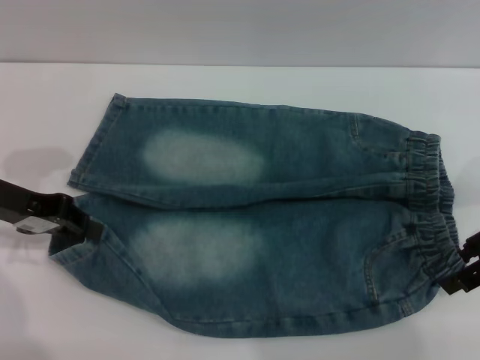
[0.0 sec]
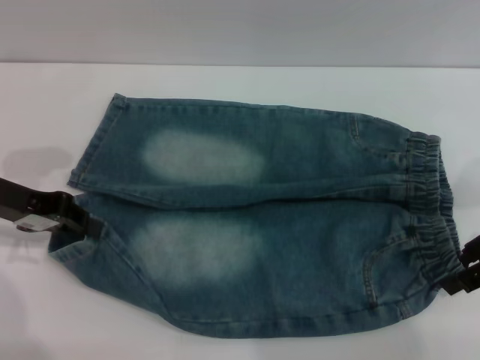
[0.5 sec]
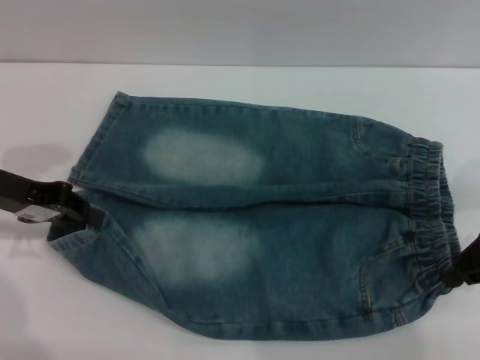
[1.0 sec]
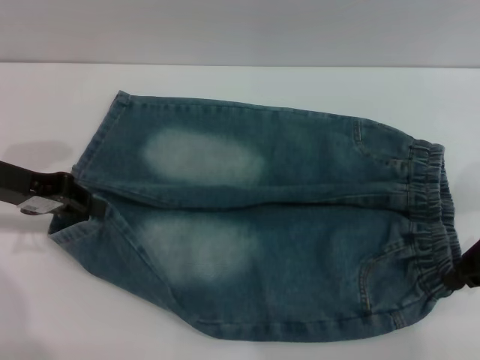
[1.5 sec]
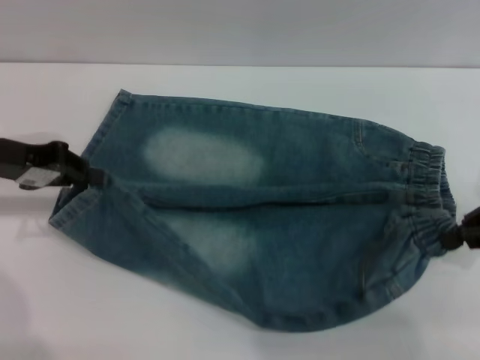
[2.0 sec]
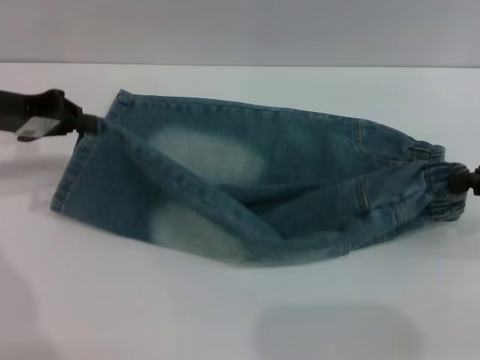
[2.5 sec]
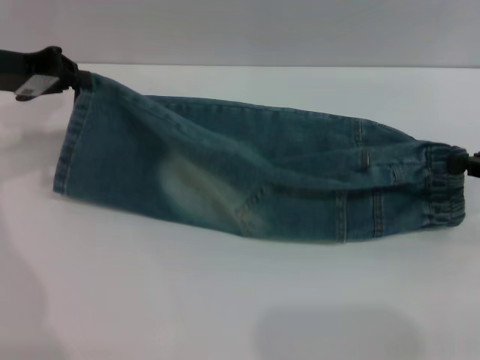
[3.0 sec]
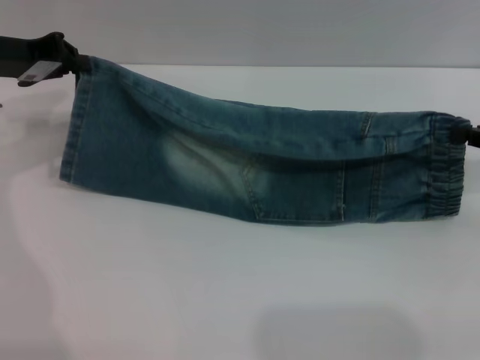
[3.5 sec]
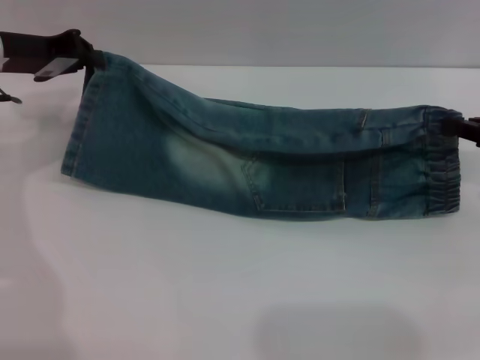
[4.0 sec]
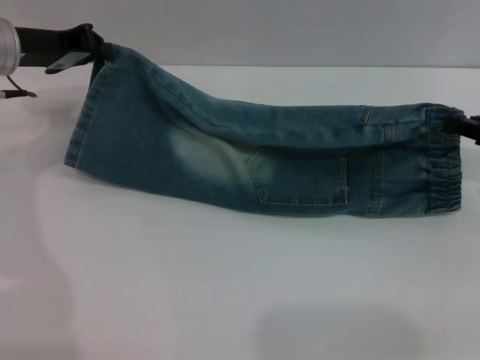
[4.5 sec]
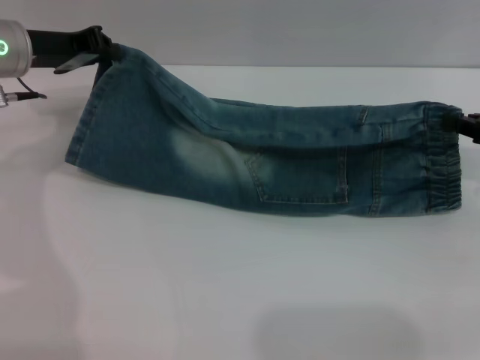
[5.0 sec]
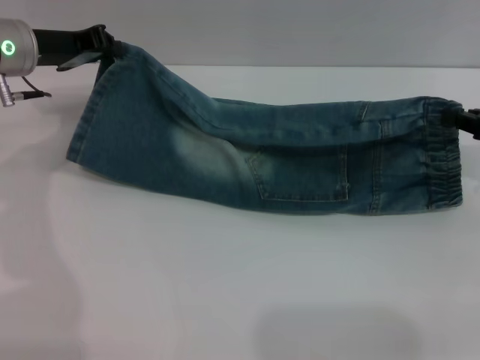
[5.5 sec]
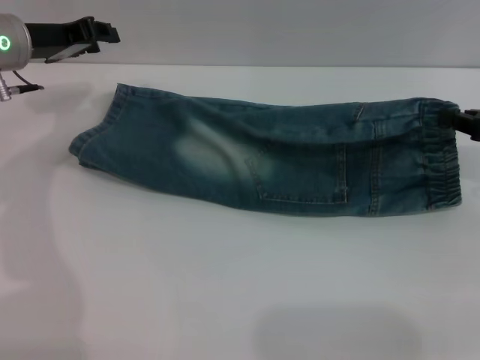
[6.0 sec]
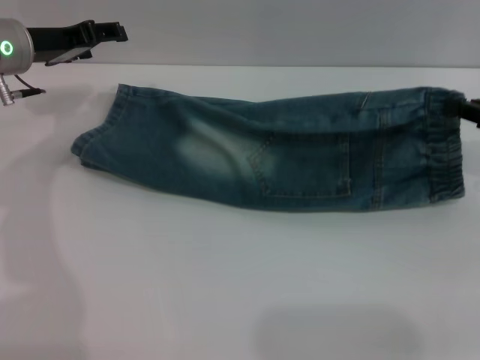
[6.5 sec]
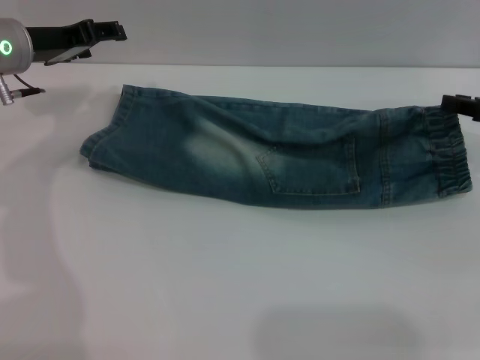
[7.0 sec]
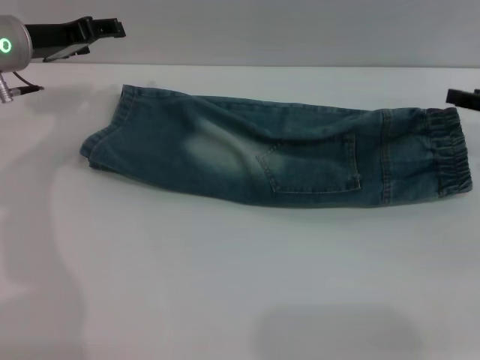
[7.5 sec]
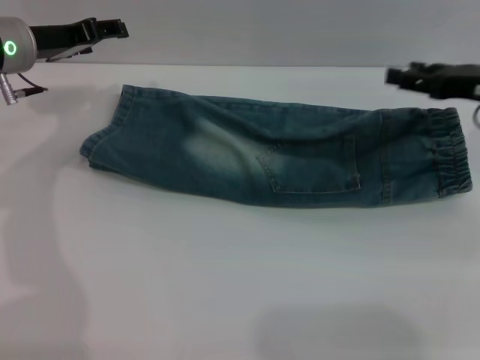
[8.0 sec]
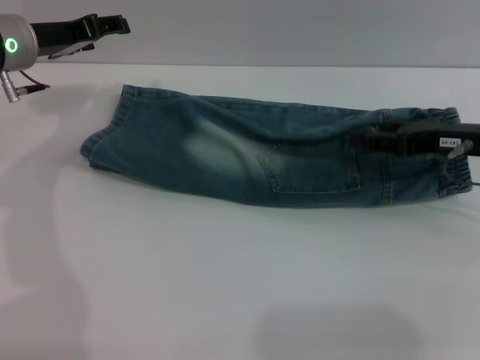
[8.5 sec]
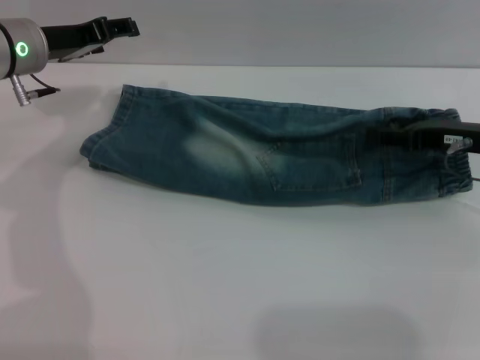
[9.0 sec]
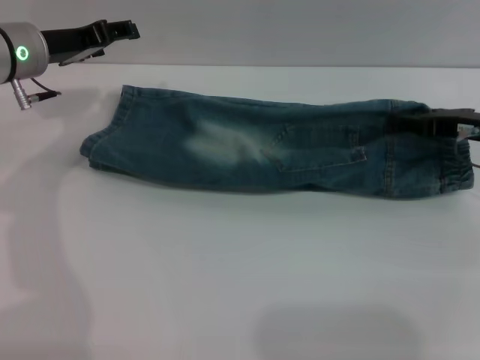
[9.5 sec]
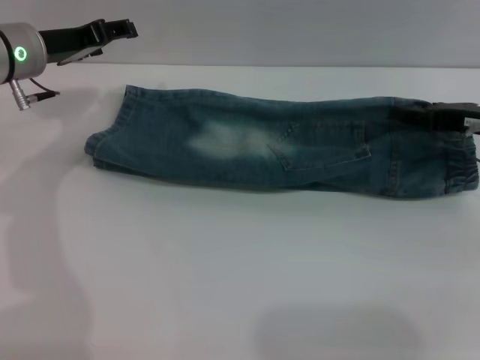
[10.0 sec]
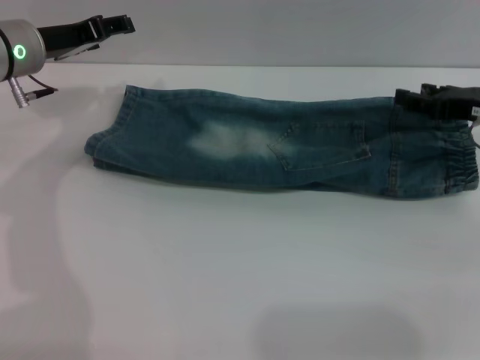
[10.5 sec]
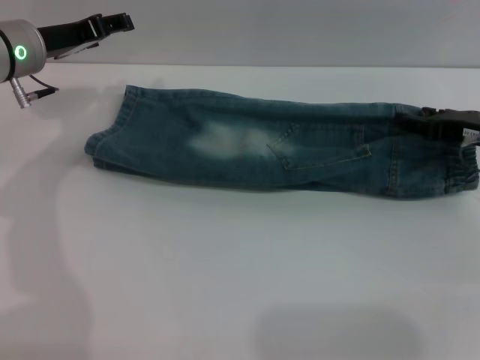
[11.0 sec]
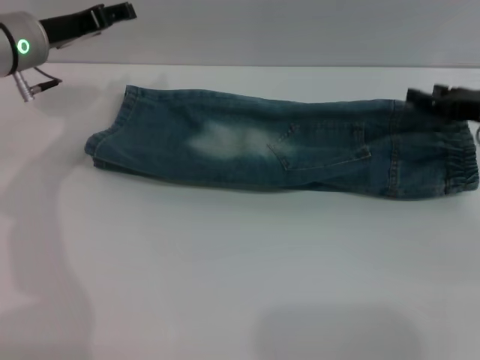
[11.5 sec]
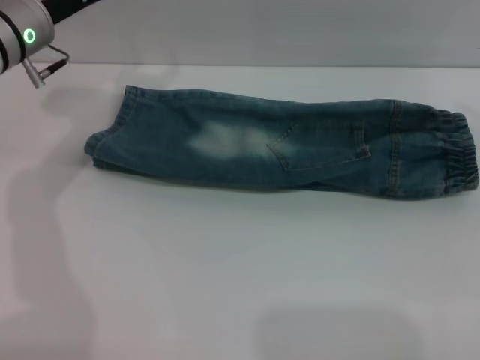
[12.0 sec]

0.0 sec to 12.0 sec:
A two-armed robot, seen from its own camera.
Step, 0.0 sec to 7.5 sec: Fold the bottom of the pants upward with both grippers.
0.0 sec to 2.0 sec: The right gripper closes its fingers.
2.0 sec to 4.0 sec: The left gripper shifts some 5 cm forward.
4.0 sec to 6.0 sec: There are only small adjustments of the grippers.
6.0 sec to 8.0 sec: The left gripper opens, while the right gripper ends up about 5 cm from where it was, and opens its fingers.
8.0 sec to 10.0 sec: The grippers stay close to where they were, moving slightly.
10.0 sec to 12.0 sec: The right gripper is displaced to the right and upward by approximately 10 cm.

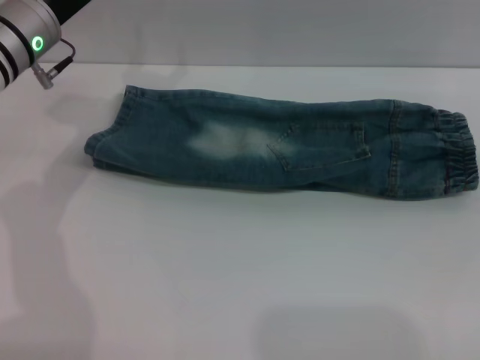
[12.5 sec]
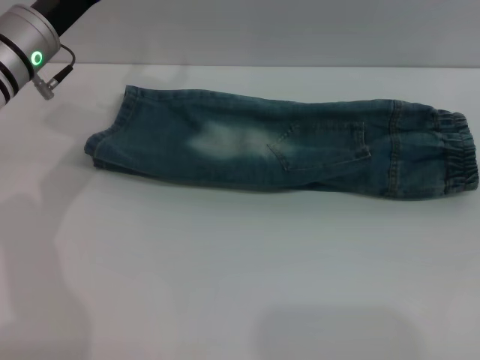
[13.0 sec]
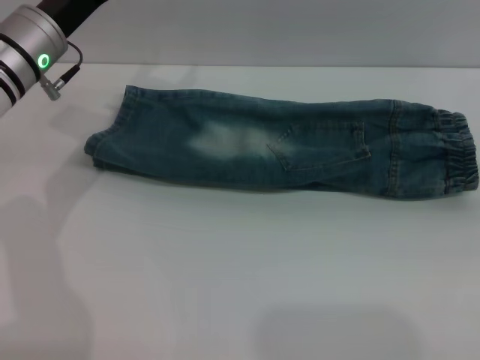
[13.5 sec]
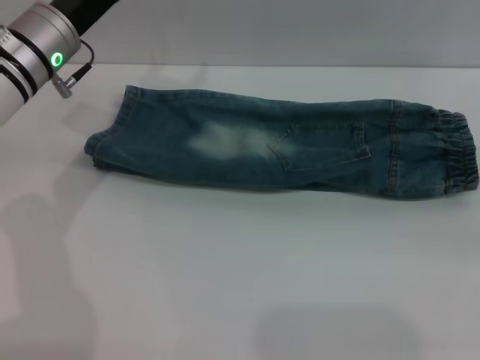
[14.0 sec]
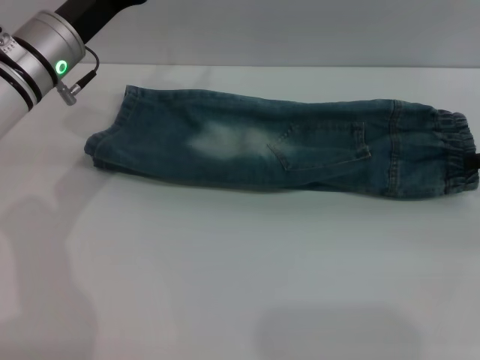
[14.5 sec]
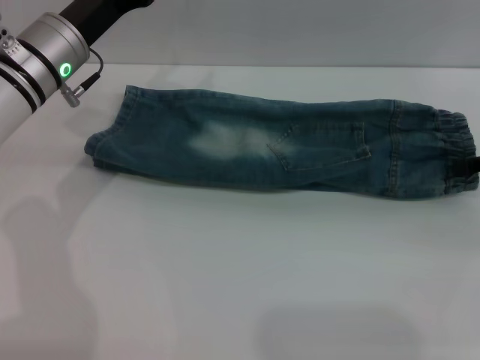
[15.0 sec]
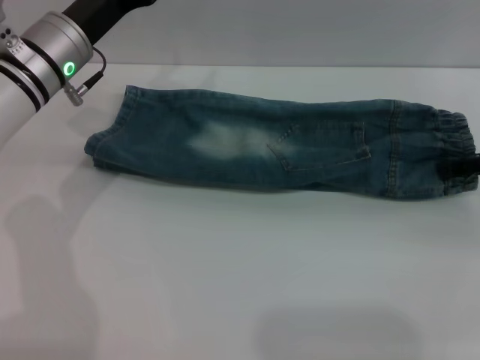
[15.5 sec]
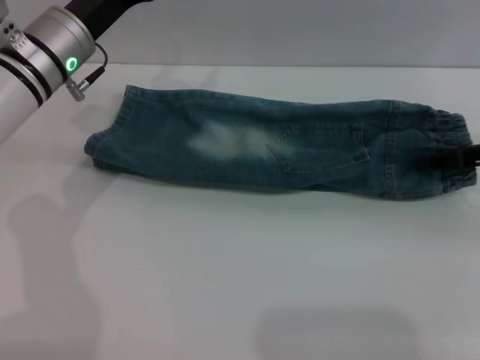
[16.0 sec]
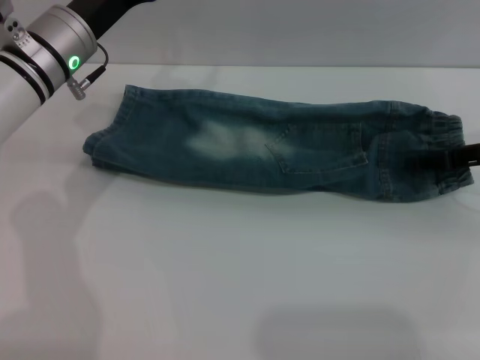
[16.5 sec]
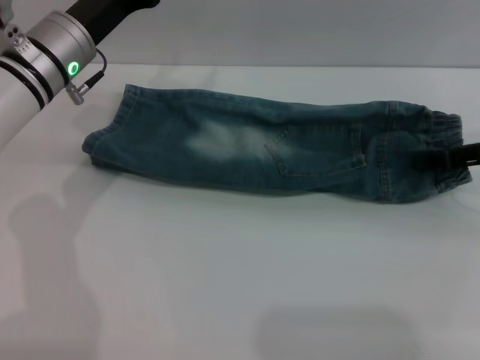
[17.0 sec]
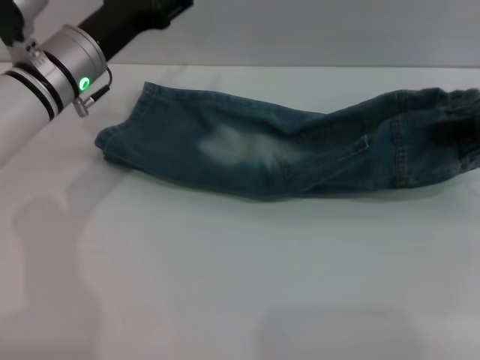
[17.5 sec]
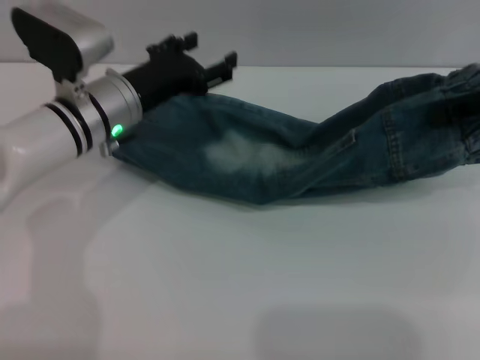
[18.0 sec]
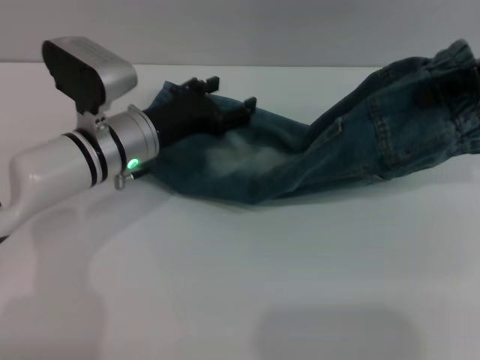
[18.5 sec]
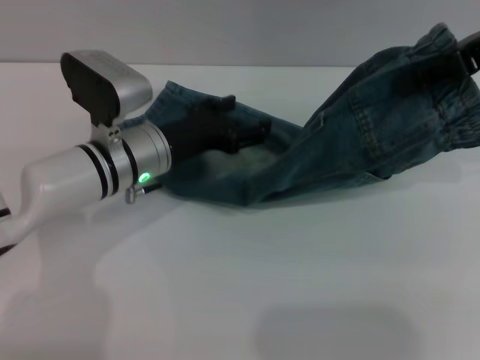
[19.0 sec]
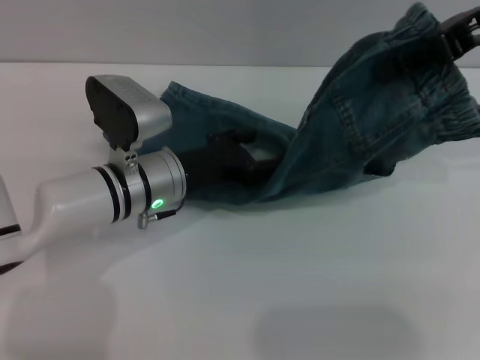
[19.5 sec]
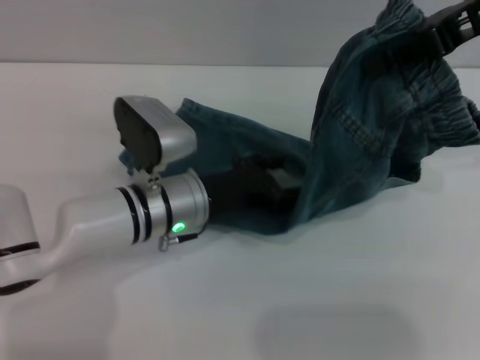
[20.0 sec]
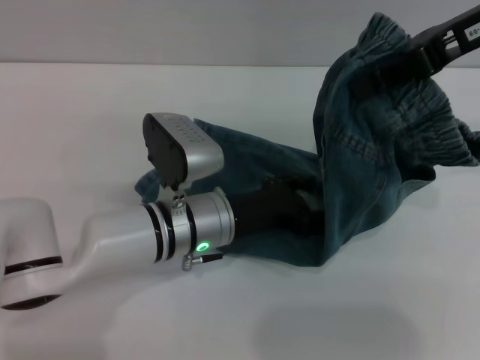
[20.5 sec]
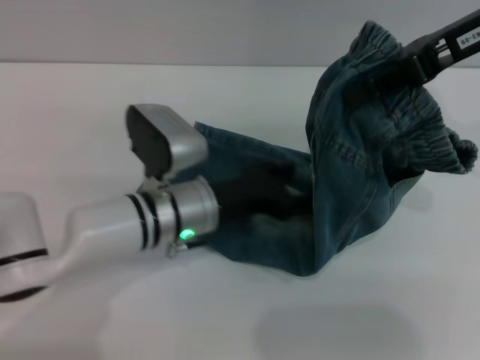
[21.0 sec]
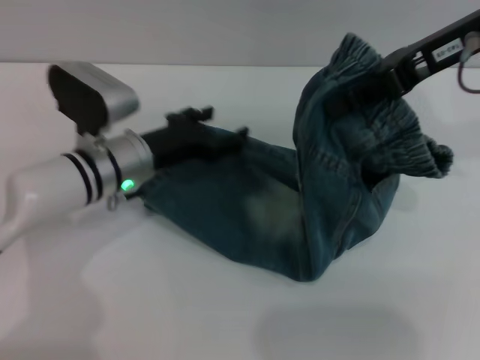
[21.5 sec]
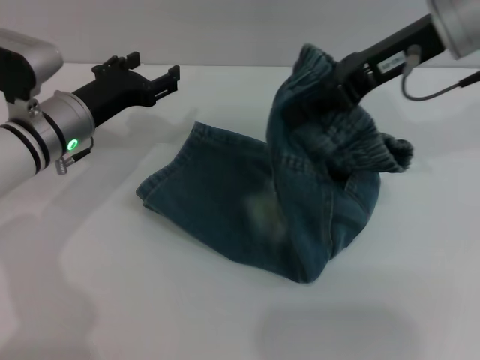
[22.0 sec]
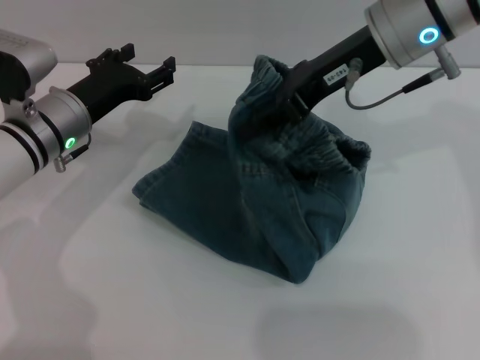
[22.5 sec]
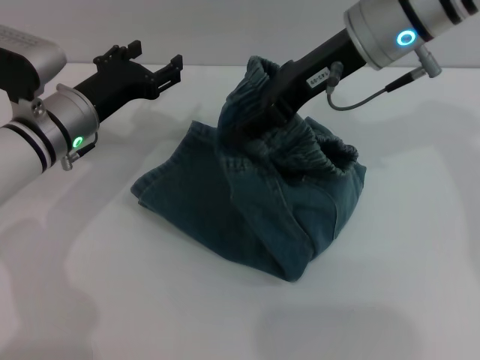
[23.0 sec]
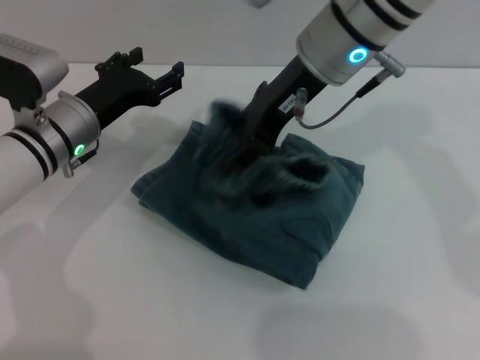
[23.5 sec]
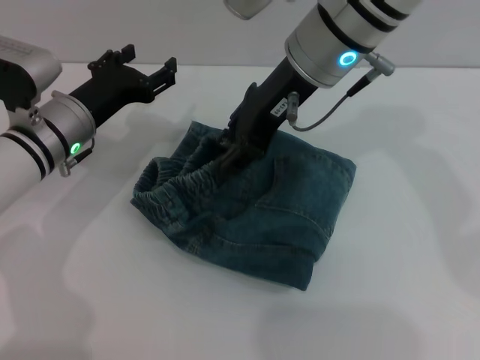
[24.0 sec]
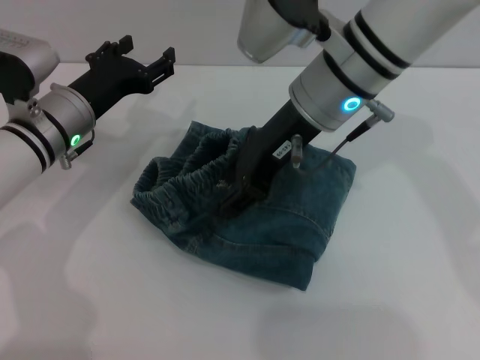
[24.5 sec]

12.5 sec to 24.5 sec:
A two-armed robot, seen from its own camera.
14.5 sec to 16.5 sec: The right gripper heads to the left, covering some 5 cm.
16.5 sec to 18.5 sec: The right gripper travels upward by roughly 15 cm, and closes its fingers. The left gripper shifts roughly 5 cm downward.
18.5 sec to 20.5 sec: The left gripper goes approximately 10 cm to the right and backward; the right gripper moves to the left, about 5 cm.
20.5 sec to 22.5 sec: The right gripper travels to the left by roughly 10 cm. Meanwhile the left gripper moves to the left and forward, roughly 15 cm.
22.5 sec to 24.5 sec: The right gripper heads to the left, covering some 5 cm, and opens its fingers.

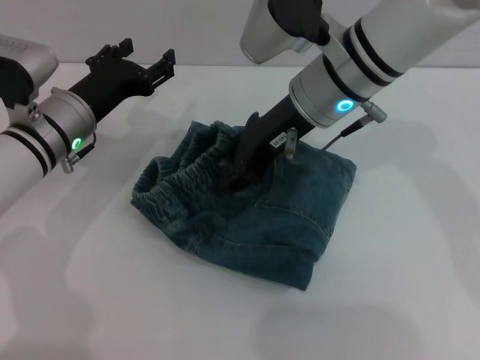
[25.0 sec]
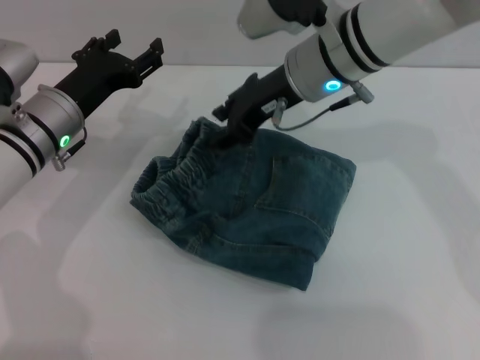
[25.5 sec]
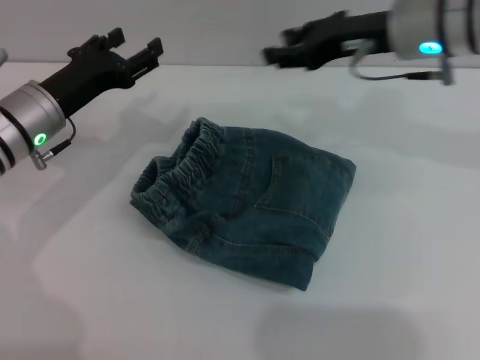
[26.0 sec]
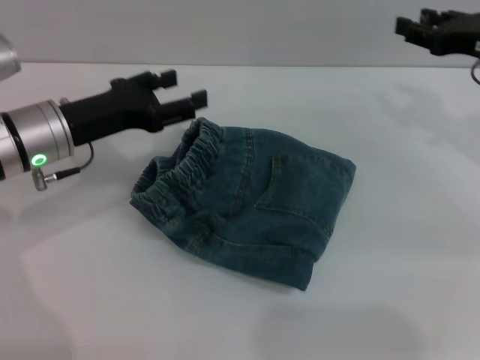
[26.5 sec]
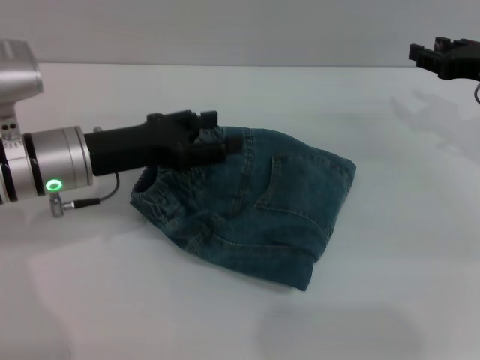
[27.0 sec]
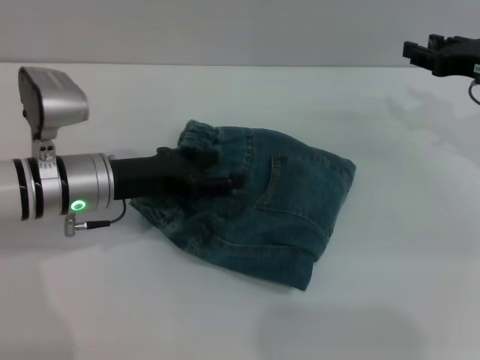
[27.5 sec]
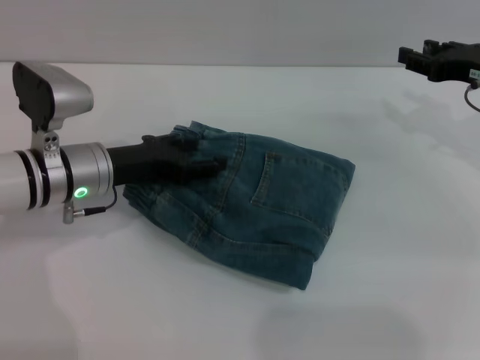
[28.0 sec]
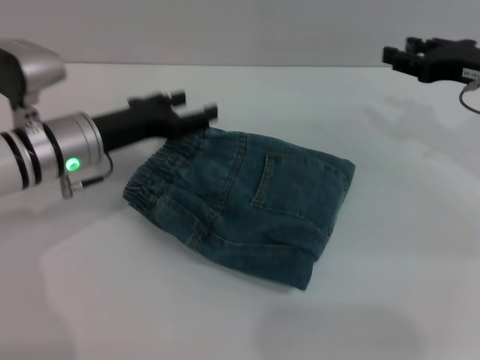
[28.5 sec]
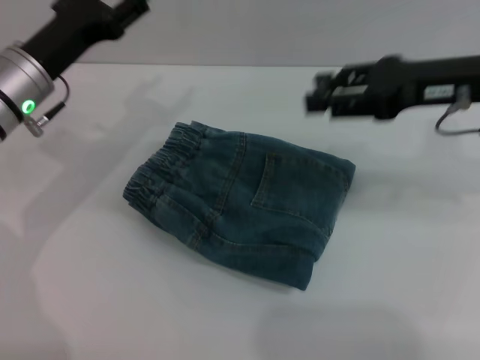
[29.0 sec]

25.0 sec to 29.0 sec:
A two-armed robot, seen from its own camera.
25.0 sec to 27.0 sec: The left gripper shifts by roughly 5 cm, while the right gripper shifts approximately 25 cm to the right.
27.0 sec to 29.0 sec: The left gripper moves approximately 5 cm, while the right gripper is displaced to the left and upward by approximately 10 cm.
